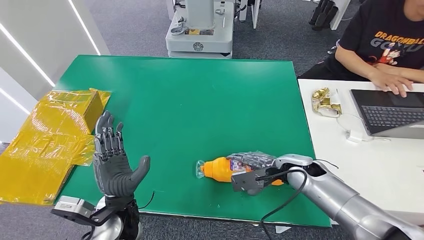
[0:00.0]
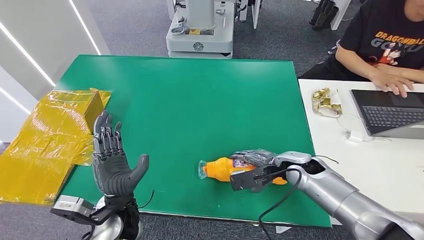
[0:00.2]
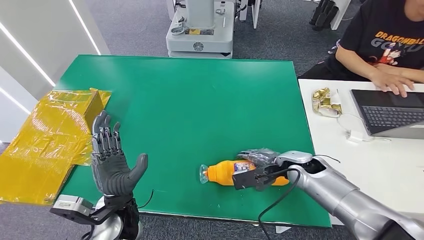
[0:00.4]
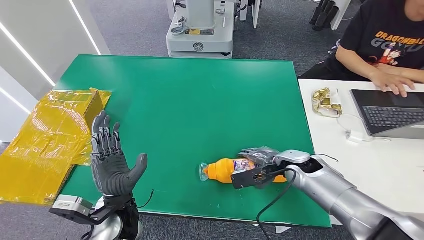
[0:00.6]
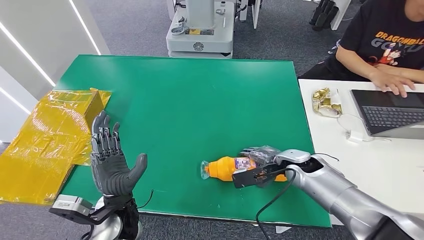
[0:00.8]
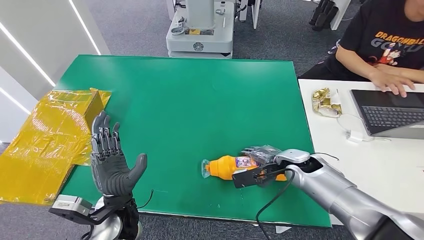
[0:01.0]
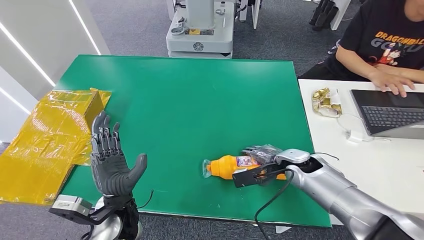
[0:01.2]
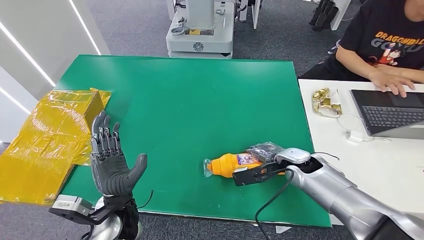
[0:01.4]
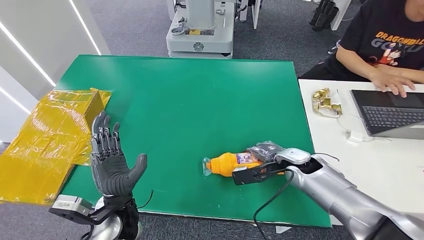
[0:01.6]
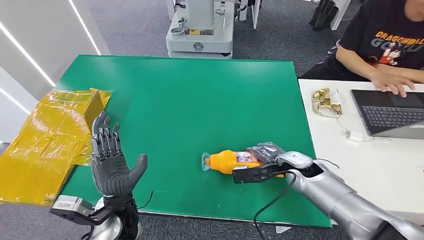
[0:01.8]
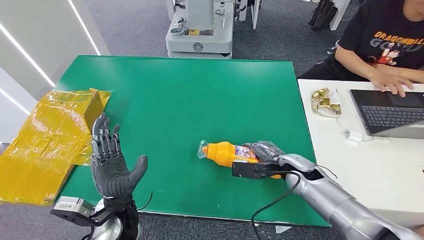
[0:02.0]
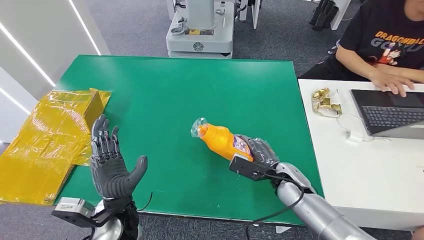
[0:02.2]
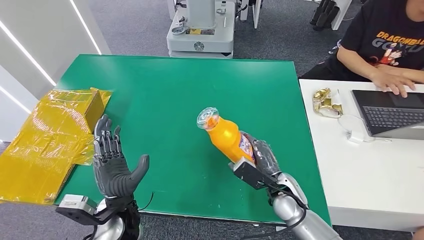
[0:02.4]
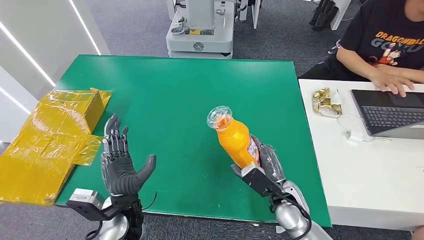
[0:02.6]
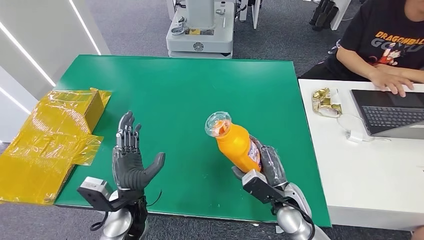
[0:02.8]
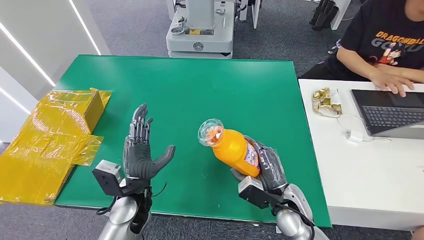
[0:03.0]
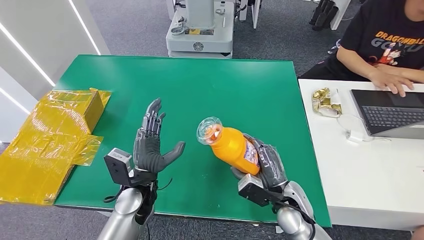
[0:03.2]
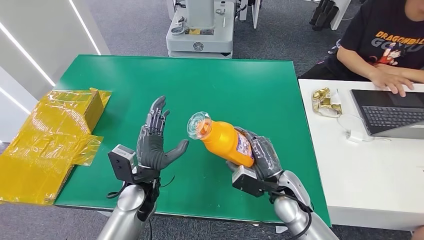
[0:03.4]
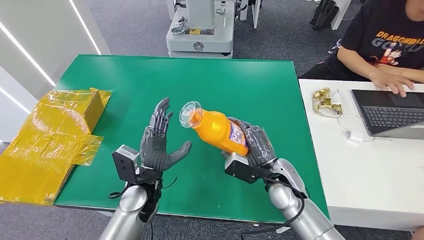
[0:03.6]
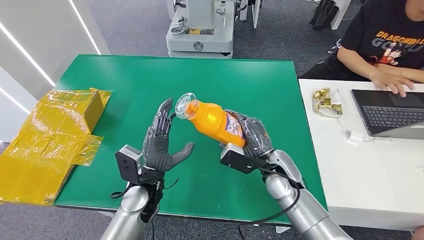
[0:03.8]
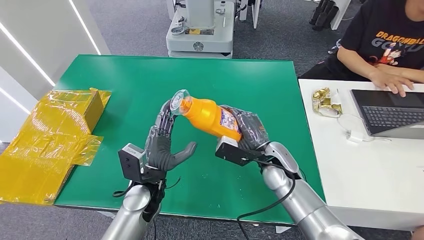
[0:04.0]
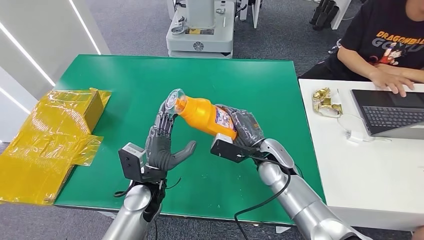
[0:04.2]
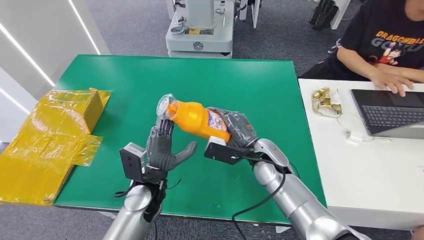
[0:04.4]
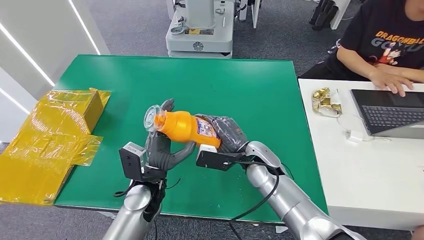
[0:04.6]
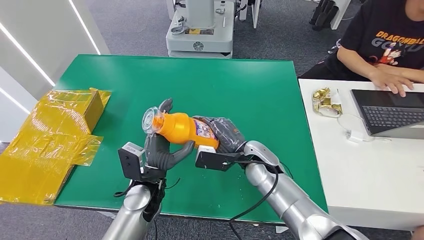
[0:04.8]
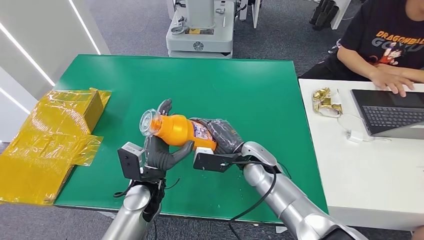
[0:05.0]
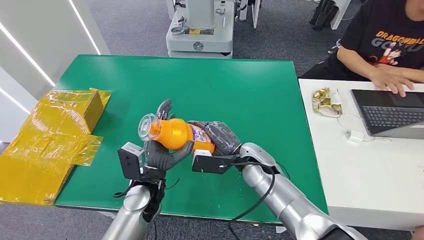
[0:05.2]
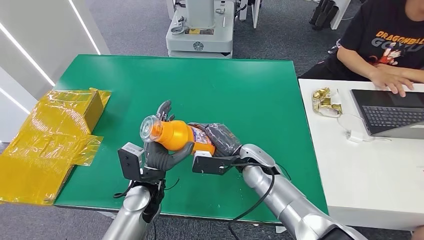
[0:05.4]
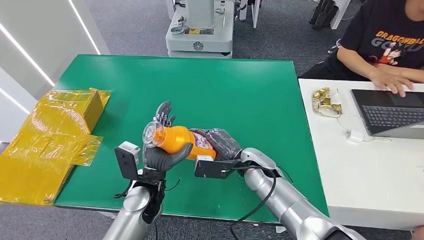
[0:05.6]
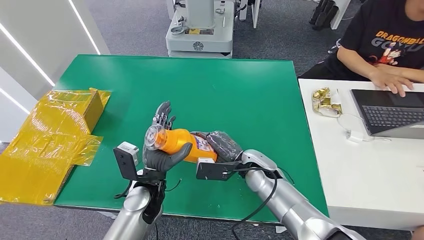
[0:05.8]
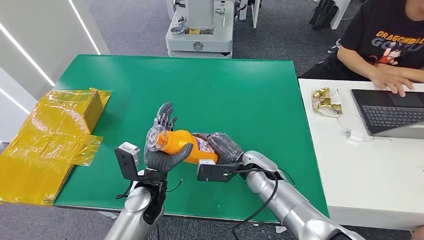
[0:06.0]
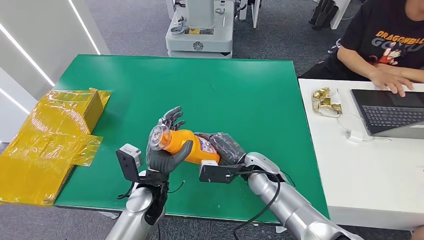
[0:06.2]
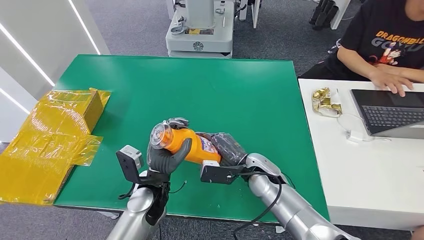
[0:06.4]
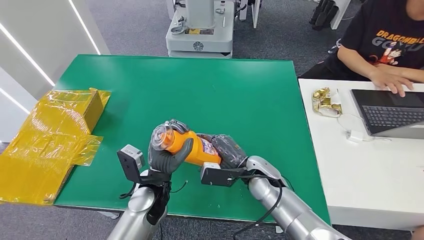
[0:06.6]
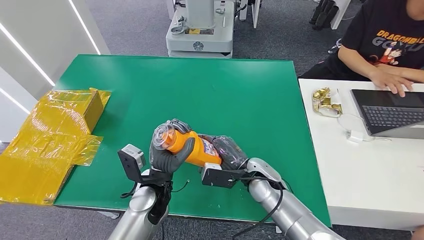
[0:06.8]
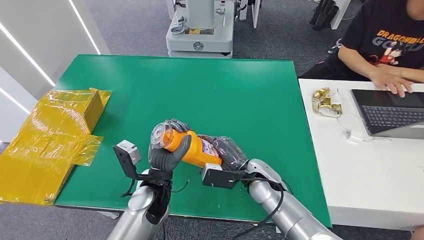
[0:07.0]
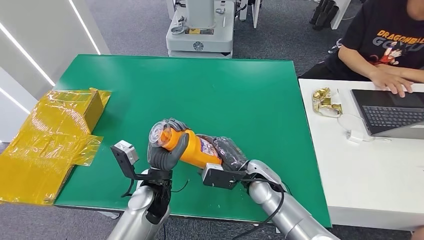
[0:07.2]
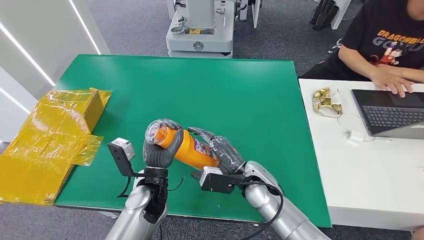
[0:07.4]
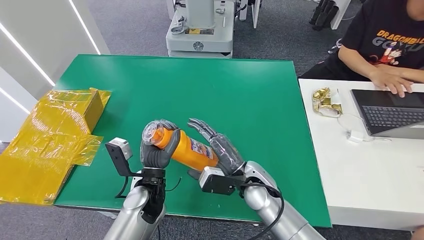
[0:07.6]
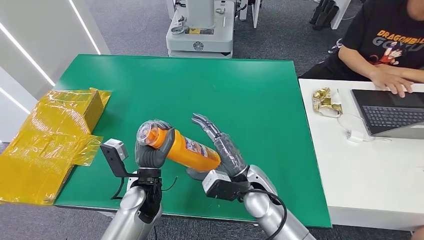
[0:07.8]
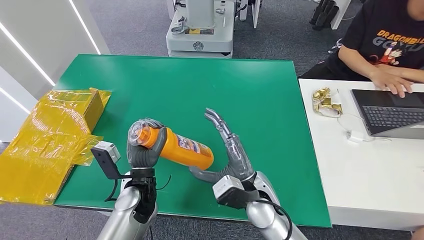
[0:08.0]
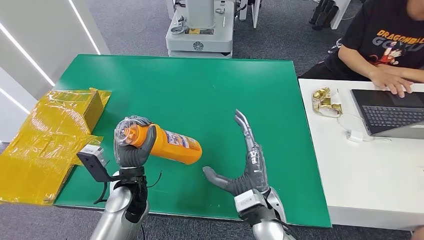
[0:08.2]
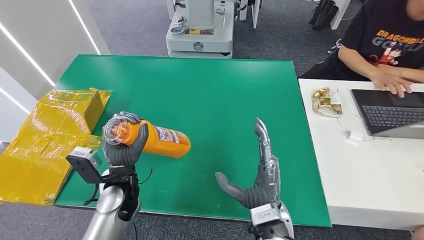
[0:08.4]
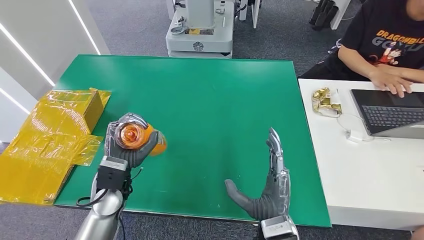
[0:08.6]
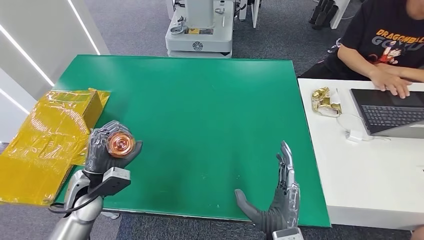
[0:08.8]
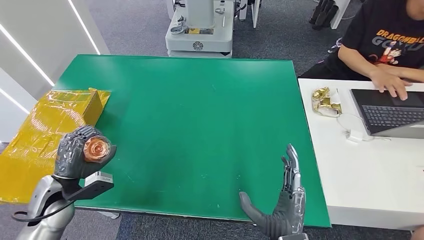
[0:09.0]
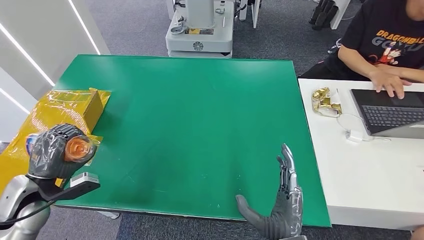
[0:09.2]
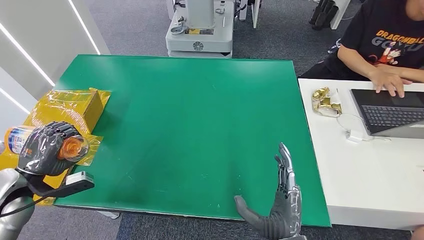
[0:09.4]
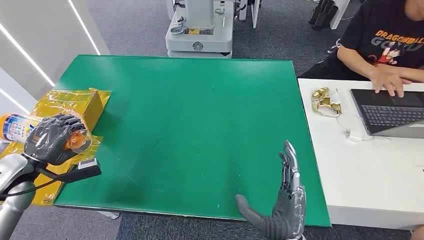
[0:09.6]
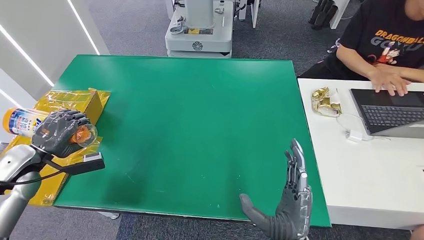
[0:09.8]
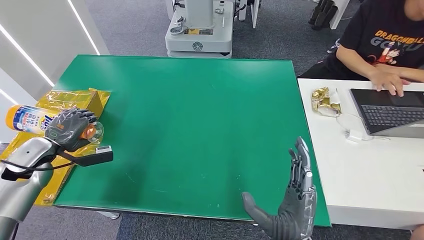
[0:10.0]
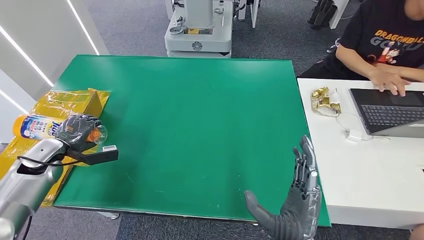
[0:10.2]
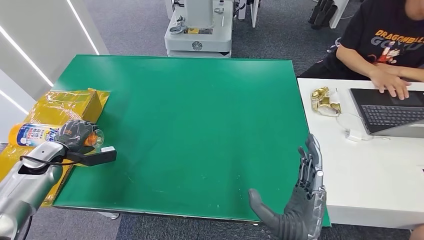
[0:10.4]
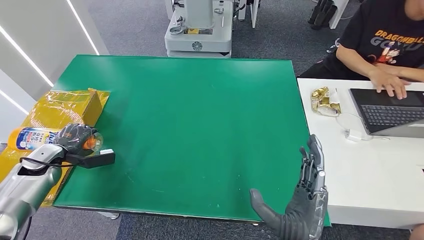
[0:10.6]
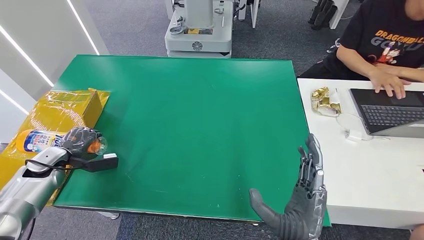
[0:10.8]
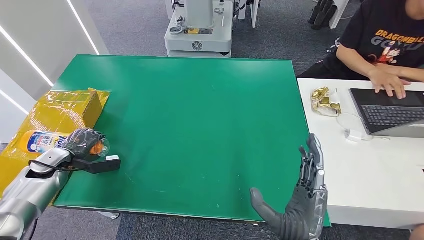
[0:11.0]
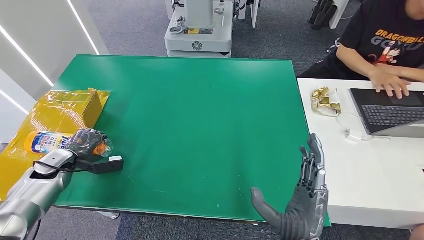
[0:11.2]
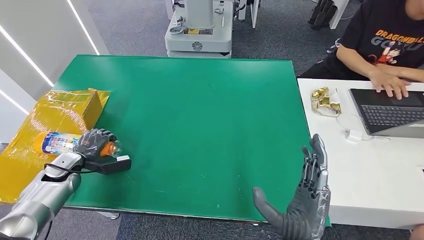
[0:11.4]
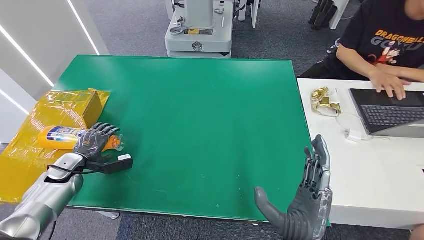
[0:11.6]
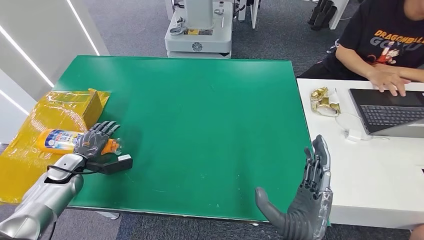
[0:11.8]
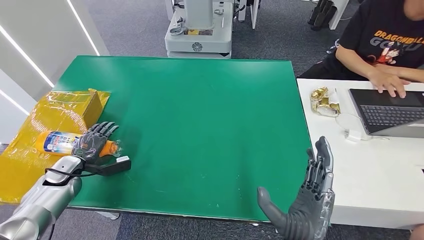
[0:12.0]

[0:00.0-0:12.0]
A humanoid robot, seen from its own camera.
Step, 0:00.0 to 0:03.8: Pick up the bottle from the table.
0:01.6 to 0:03.0: The right hand moves backward and downward, about 10 cm.
0:03.0 to 0:04.4: The right hand heads forward, to the left and upward, covering roughly 15 cm.
0:04.4 to 0:06.0: The hands move only a little.
0:07.6 to 0:09.0: The left hand travels to the left by some 20 cm. The right hand moves backward, about 15 cm.
0:09.0 to 0:10.4: The left hand shifts approximately 15 cm to the left and forward.
0:10.4 to 0:12.0: The left hand heads downward, covering roughly 5 cm.

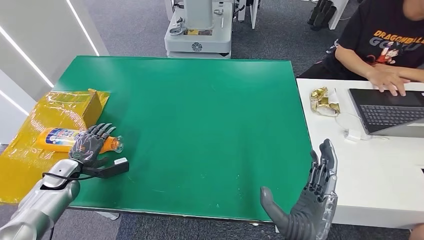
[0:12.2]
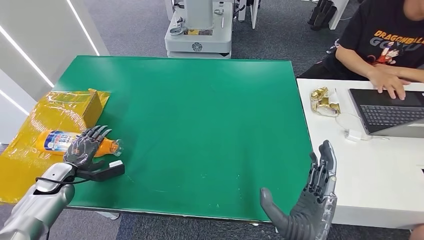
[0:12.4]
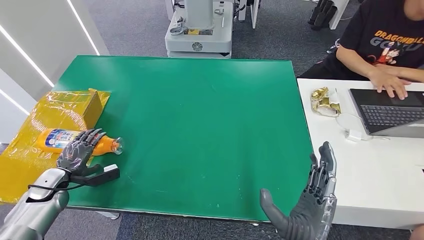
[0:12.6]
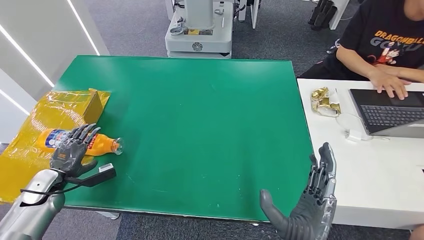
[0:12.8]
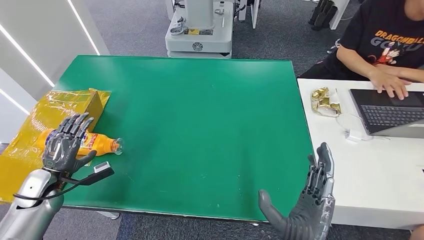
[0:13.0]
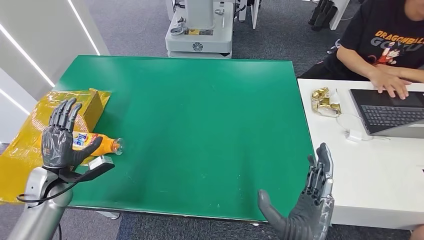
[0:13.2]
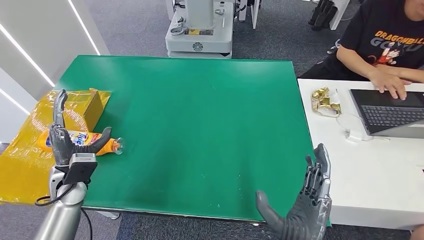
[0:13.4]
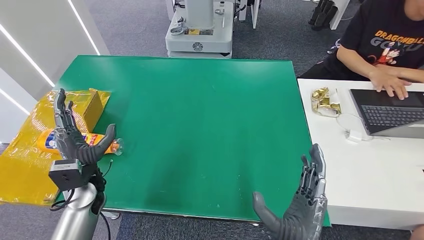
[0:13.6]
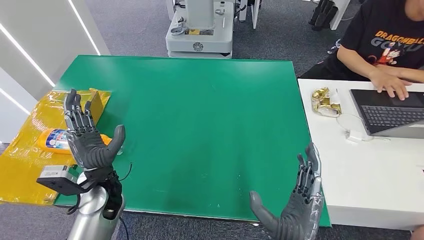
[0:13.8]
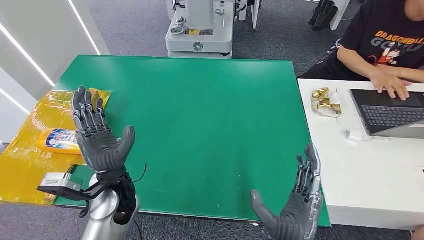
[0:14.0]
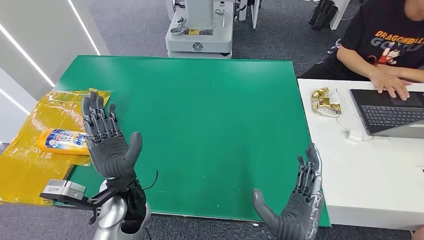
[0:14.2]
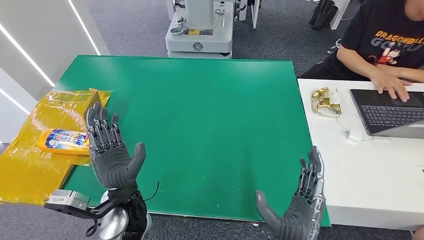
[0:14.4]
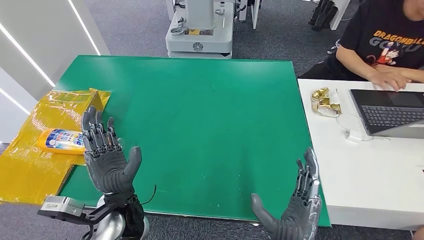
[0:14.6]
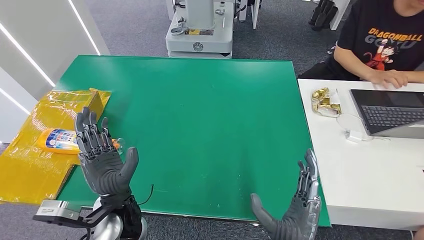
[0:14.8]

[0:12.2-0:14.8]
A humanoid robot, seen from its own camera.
Step, 0:12.2 to 0:14.8: Turn the bottle to the front side.
0:12.2 to 0:13.4: The left hand heads to the right and upward, covering approximately 10 cm.
0:13.4 to 0:14.8: The left hand is displaced to the right by roughly 20 cm.
